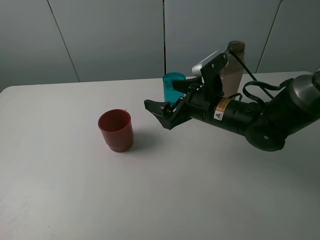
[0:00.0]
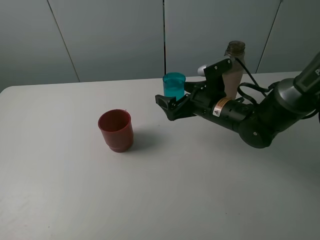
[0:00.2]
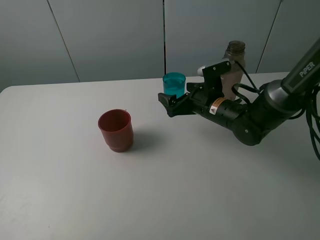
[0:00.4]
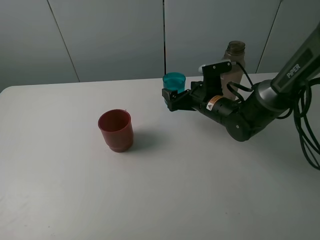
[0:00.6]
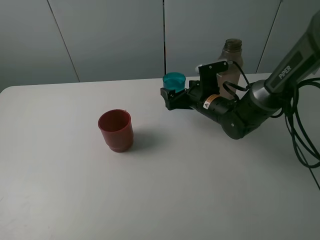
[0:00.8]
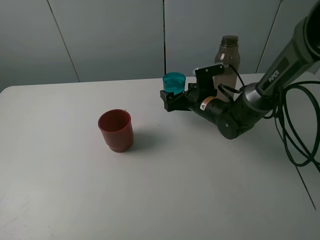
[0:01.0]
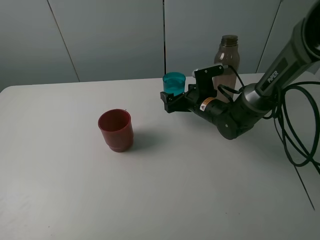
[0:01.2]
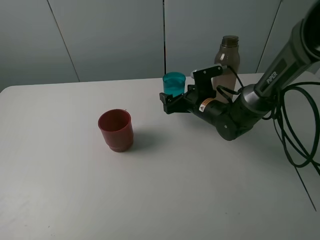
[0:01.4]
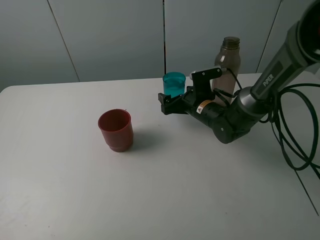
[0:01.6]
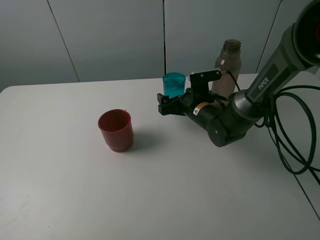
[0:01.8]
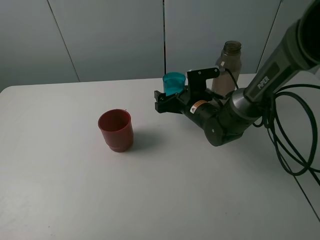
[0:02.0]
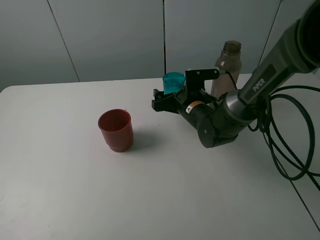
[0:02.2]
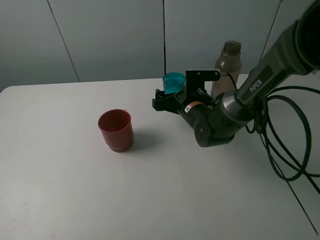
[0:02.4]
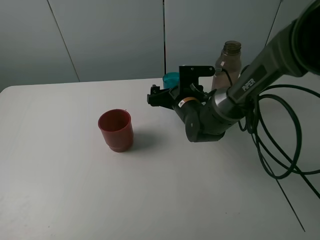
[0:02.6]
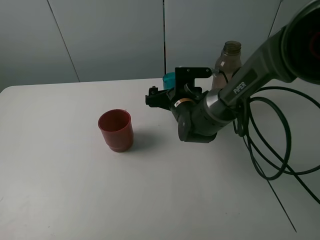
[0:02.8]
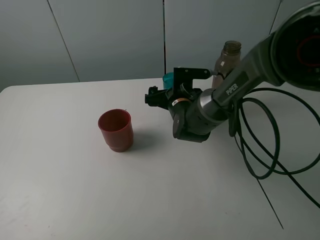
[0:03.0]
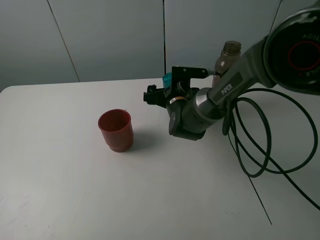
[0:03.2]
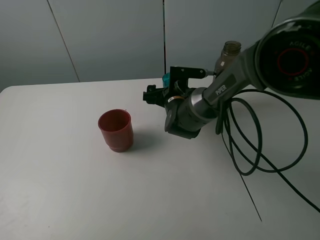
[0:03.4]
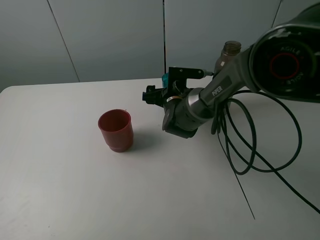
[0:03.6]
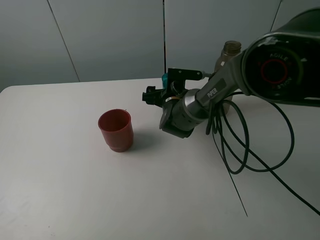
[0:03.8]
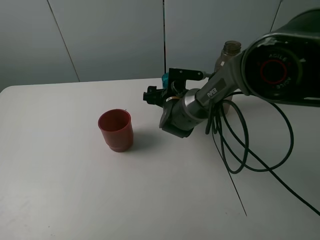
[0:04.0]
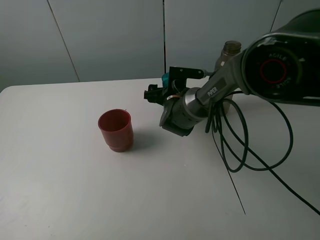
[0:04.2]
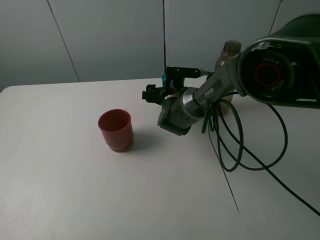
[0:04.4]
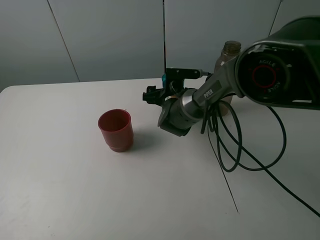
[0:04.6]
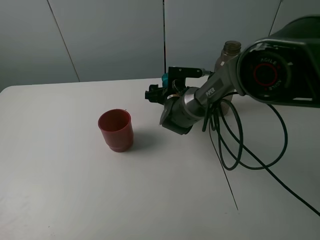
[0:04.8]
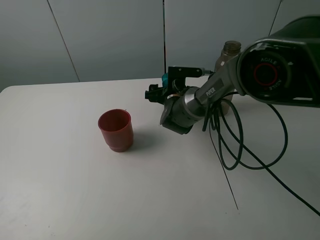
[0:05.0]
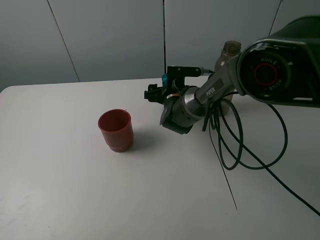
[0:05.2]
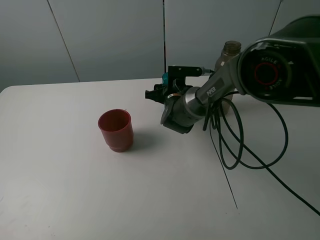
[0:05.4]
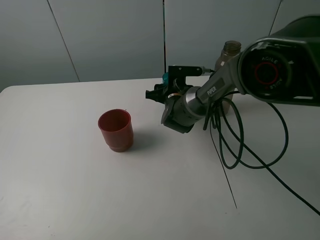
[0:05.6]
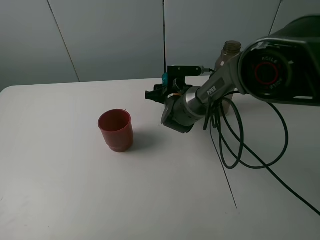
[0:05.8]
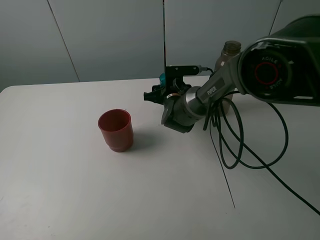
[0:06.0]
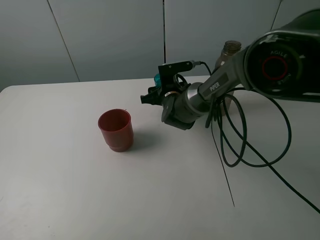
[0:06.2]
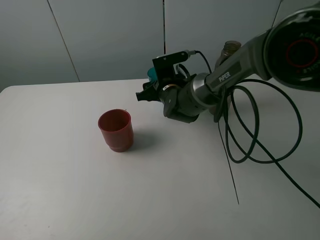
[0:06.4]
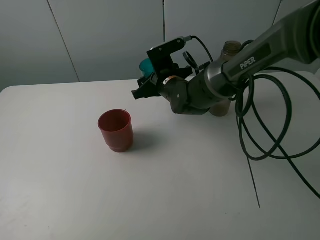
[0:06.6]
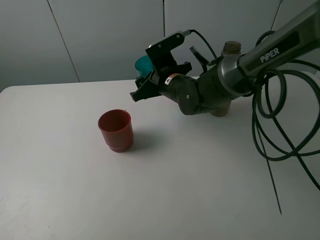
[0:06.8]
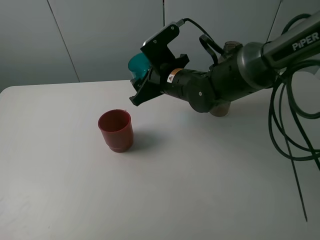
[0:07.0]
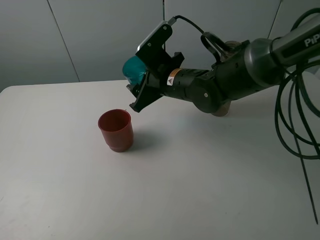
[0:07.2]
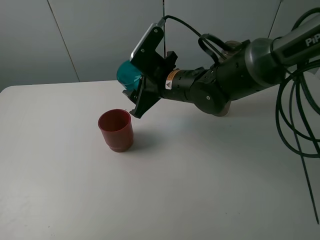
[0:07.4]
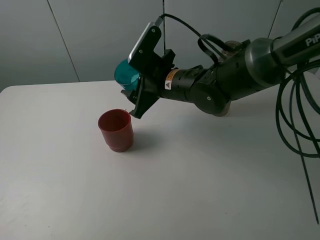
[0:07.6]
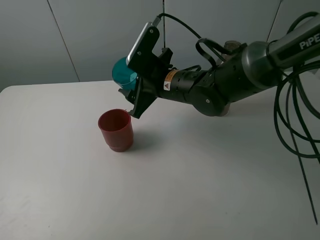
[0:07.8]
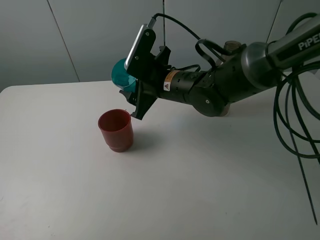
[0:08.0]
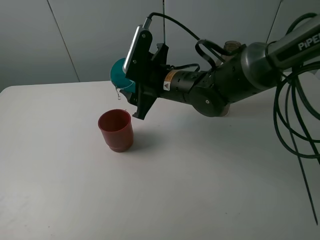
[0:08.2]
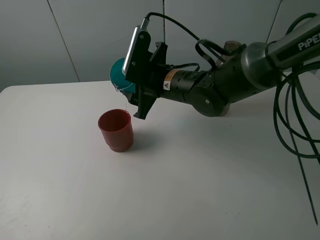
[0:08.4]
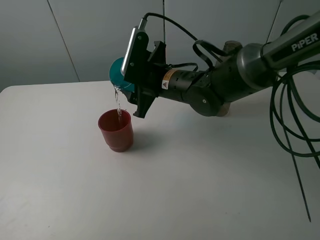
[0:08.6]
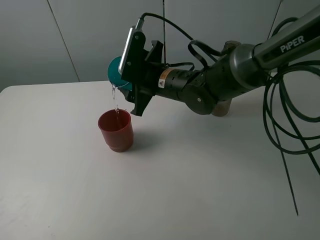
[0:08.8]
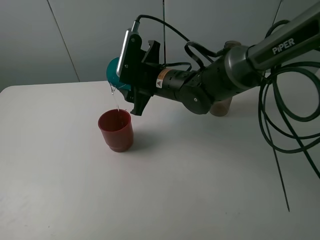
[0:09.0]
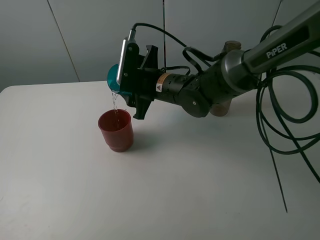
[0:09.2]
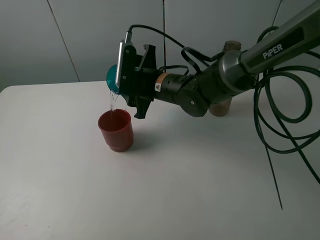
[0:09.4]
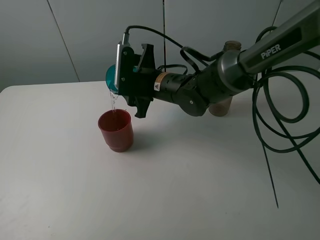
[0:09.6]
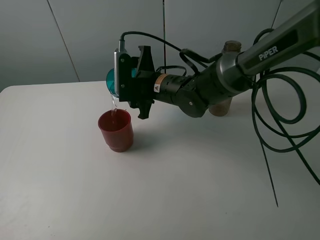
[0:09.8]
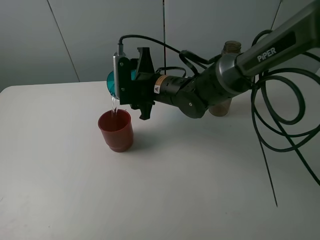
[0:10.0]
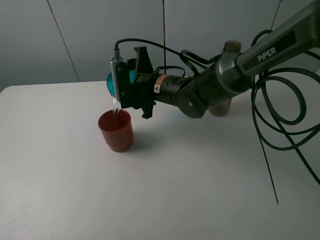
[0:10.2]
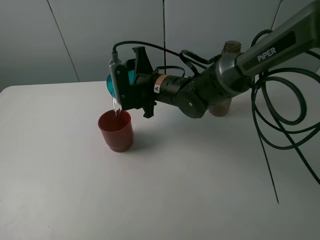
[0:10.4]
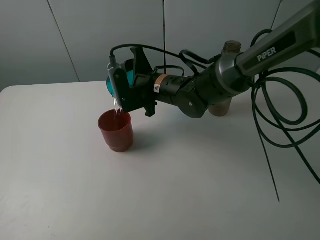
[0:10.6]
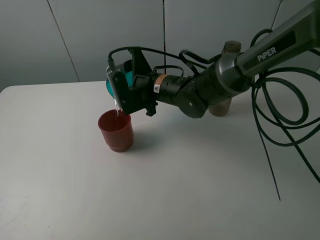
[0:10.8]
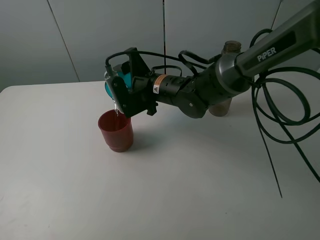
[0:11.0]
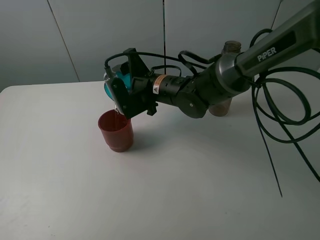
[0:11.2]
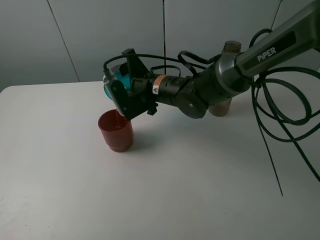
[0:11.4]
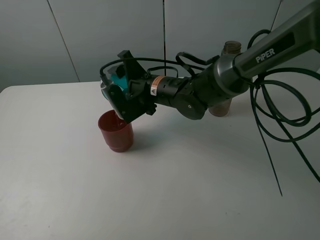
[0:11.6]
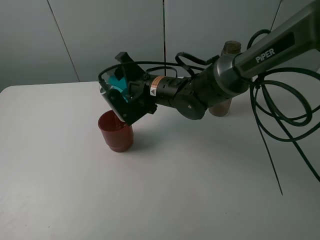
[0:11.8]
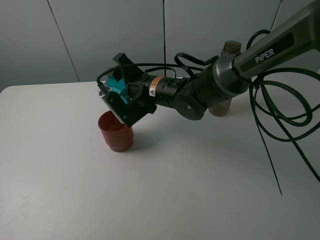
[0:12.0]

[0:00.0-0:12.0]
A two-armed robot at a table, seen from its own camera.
Task of the whole recording: pick up the bottle and pour water into the cup, then pick up the cup containing water and pour it into another cup.
Step, 0:00.0 to 0:05.2: Grasp the blue cup with the right gripper.
0:00.0 to 0:01.6: The right gripper is displaced forward and downward by roughly 10 cm.
0:01.6 to 0:03.0: The right gripper goes roughly 5 cm to the left.
0:03.0 to 0:04.4: The grippers make only small movements.
0:04.4 to 0:06.0: The right gripper closes up.
0:06.0 to 0:07.6: The right gripper moves upward and backward, about 15 cm.

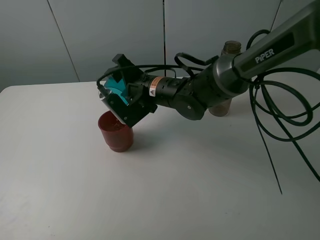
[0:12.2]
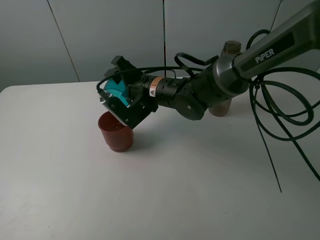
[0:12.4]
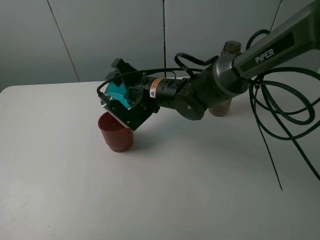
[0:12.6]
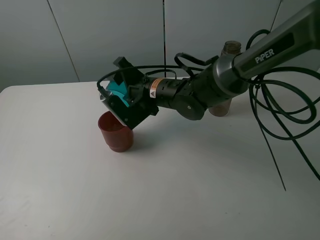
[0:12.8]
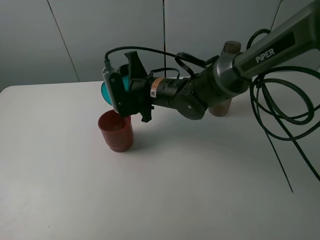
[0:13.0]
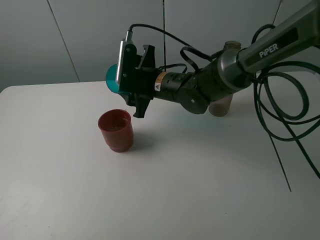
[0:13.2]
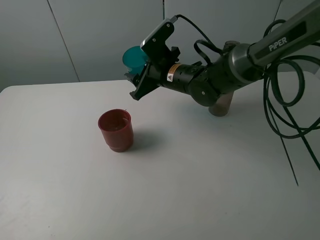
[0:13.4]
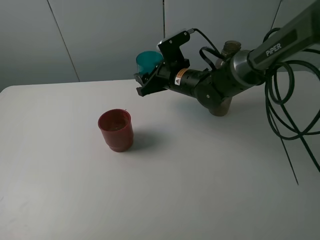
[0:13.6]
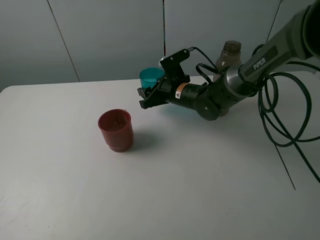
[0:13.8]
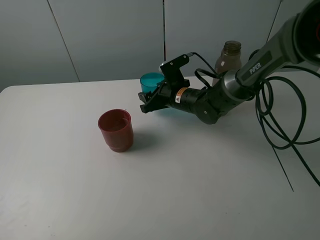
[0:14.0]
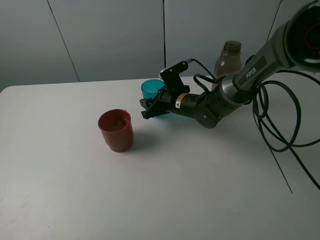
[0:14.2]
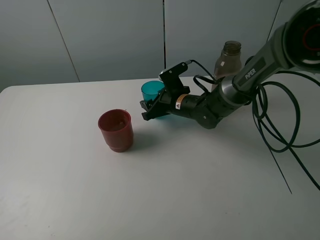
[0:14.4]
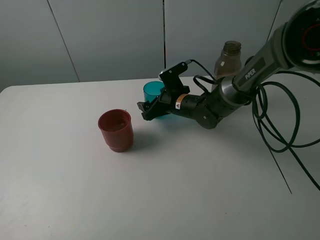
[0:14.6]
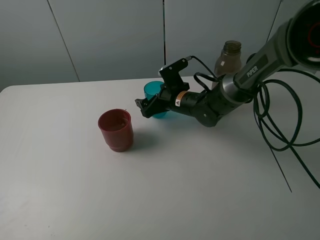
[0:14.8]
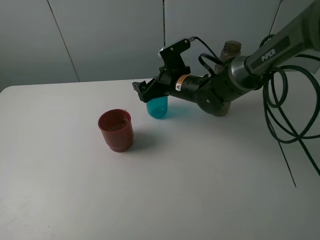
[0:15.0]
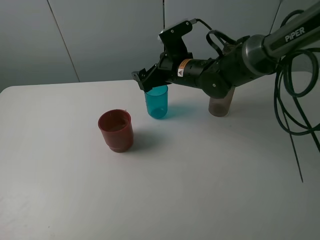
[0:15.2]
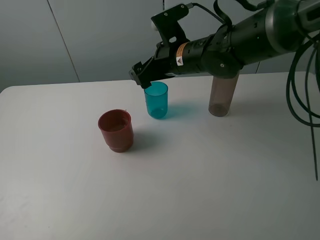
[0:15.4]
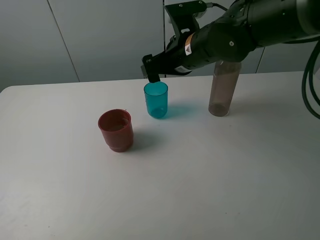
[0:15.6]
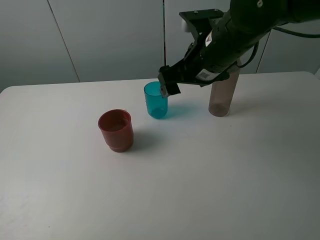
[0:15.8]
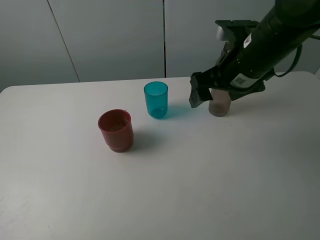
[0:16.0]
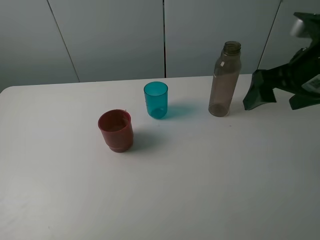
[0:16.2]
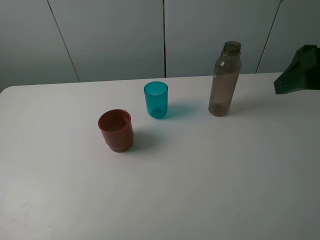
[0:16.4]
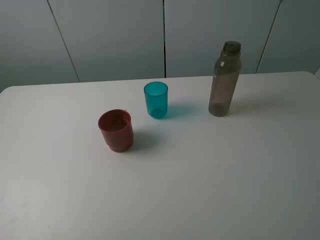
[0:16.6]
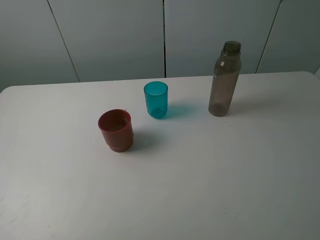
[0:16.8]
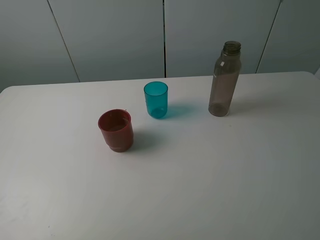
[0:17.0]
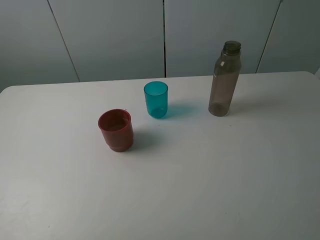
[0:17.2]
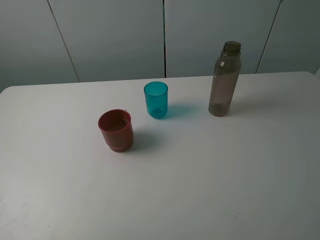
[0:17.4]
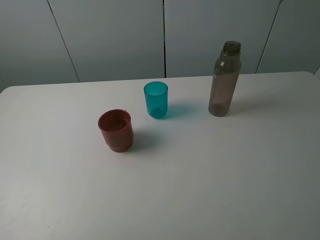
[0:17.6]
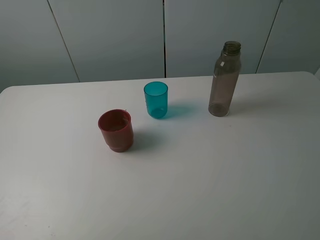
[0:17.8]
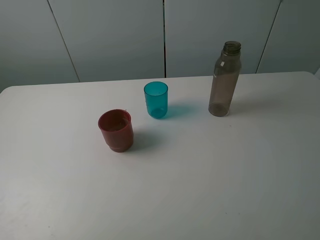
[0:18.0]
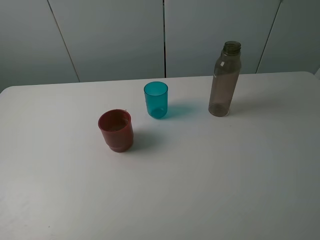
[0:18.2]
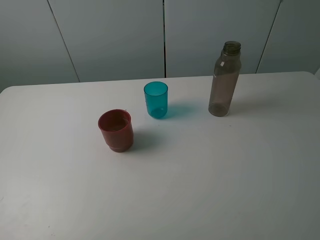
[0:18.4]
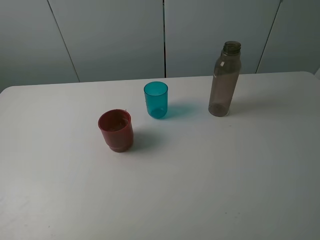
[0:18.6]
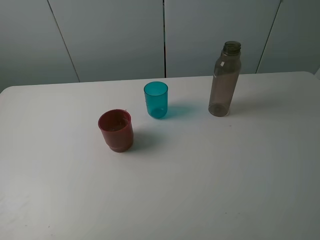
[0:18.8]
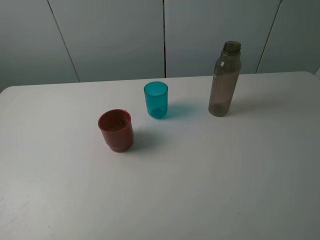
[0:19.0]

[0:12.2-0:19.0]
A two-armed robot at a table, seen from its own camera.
Task of the whole recording: pick up the bottle and pour water into the cup, then pick up the cup containing water and pour it into another cup.
Step, 0:13.2 to 0:15.0: Place the blue cup with the right gripper.
0:12.2 to 0:13.6: The right gripper moves to the right and forward, about 10 cm.
0:13.6 to 0:15.0: The right gripper opens up.
0:15.0 to 0:16.2: The right gripper goes about 30 cm to the right, upward and backward.
0:16.2 to 0:17.6: The right gripper is displaced backward by about 20 cm.
0:17.6 to 0:19.0: Both grippers stay about where they are.

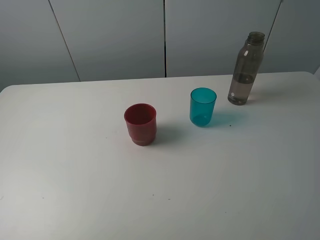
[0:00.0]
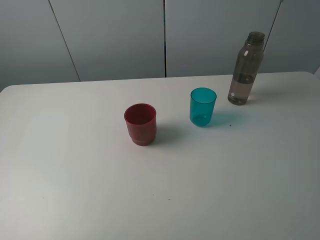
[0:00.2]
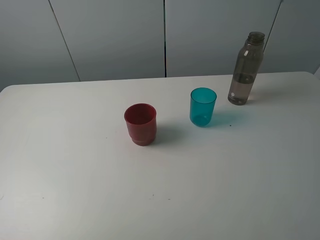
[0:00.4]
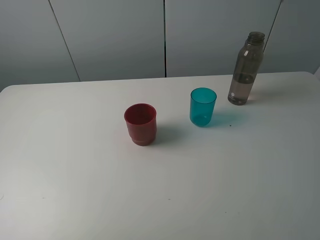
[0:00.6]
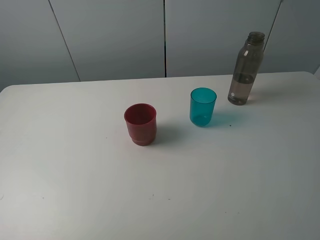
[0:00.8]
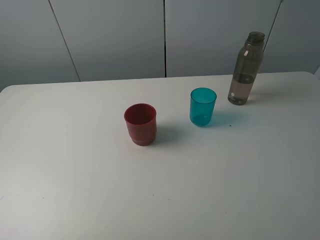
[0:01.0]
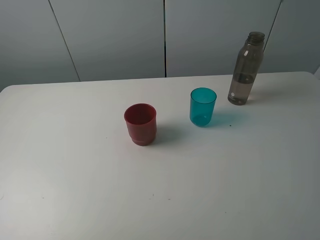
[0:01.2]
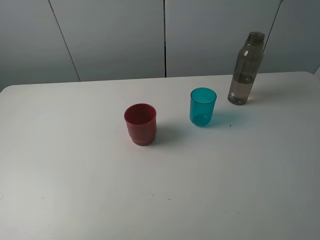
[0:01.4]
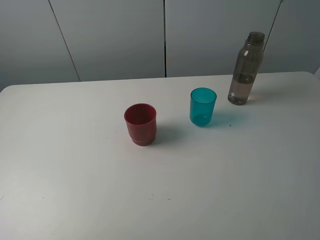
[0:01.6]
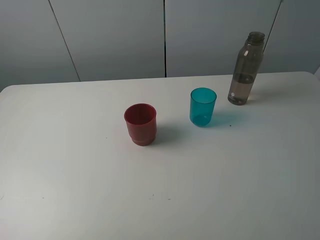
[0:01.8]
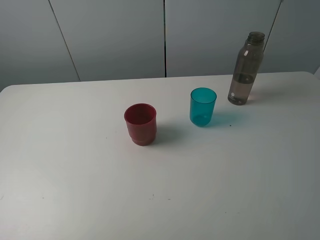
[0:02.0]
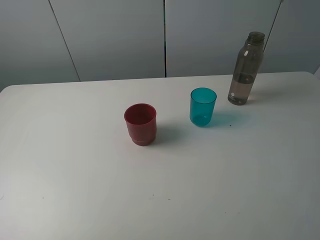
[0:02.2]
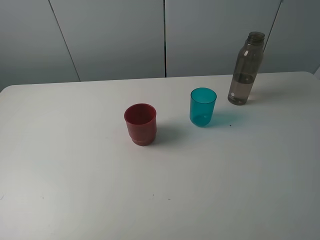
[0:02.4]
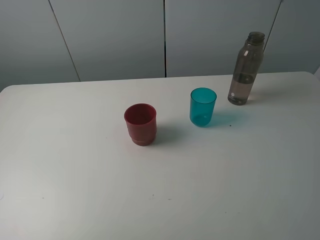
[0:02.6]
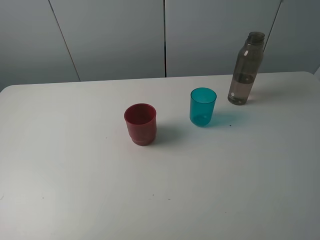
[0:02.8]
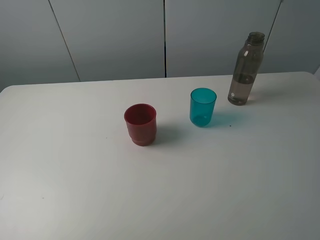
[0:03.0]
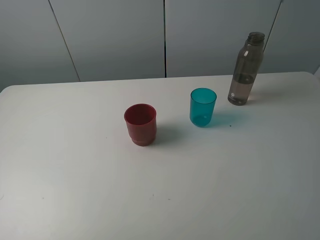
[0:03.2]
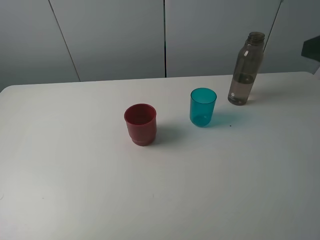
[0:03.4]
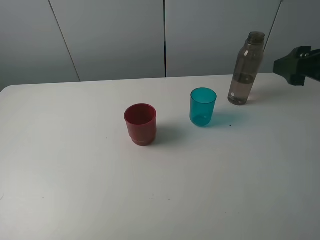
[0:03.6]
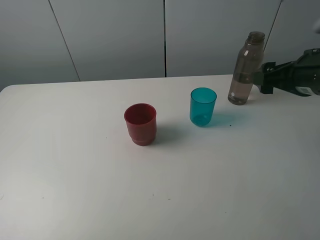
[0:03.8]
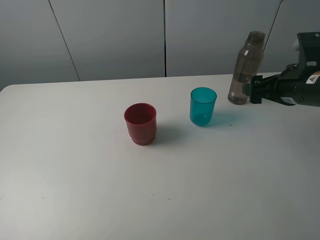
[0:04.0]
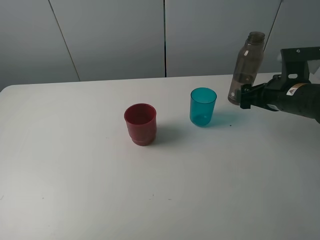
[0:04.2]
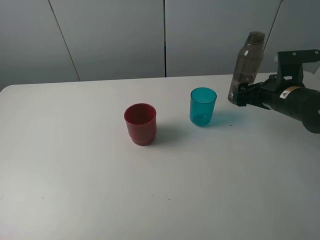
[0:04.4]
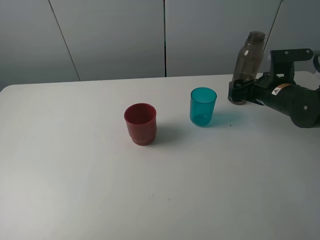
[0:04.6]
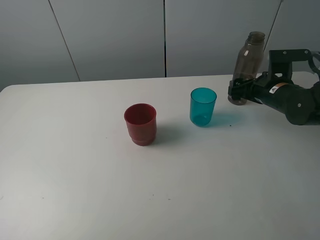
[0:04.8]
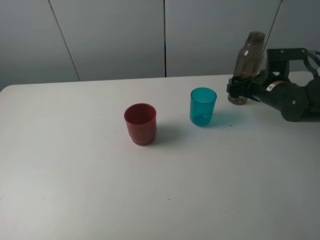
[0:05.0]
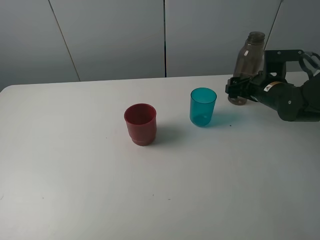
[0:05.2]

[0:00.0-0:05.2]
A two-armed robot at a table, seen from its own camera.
Task of the whole recording: pick up the bottle and pour water into the cup, then pick up the cup containing water and pour it into another cup.
0:00.0 to 0:01.8: Both grippers stay about where they are.
0:03.4 to 0:05.2: The right gripper travels downward and forward by roughly 25 cm.
